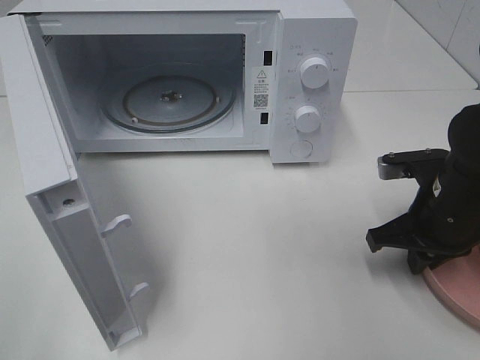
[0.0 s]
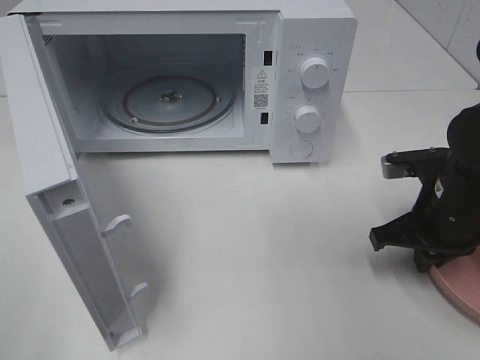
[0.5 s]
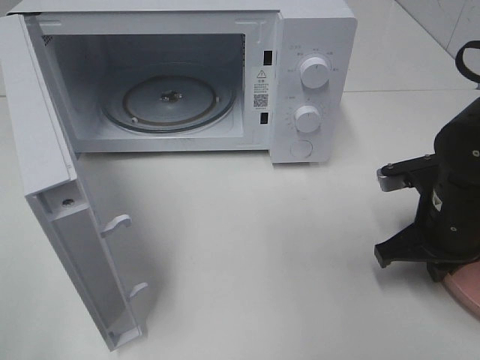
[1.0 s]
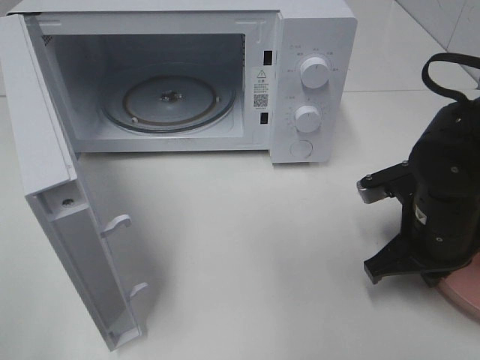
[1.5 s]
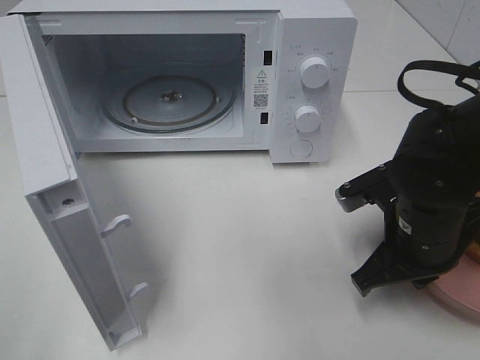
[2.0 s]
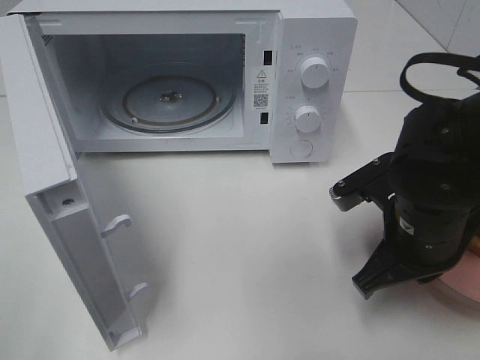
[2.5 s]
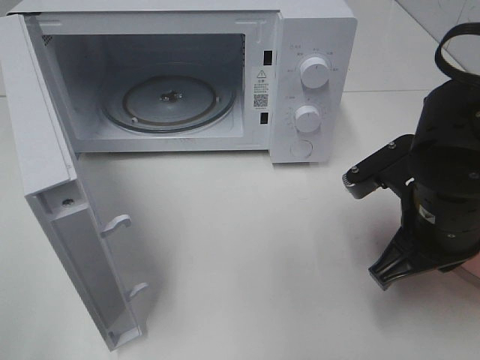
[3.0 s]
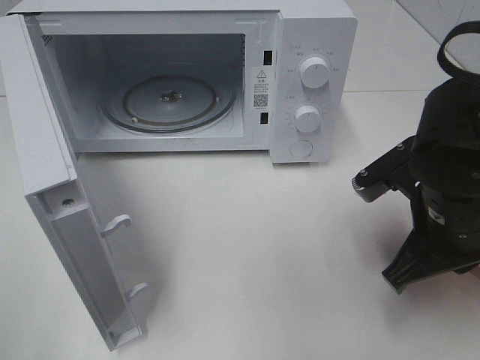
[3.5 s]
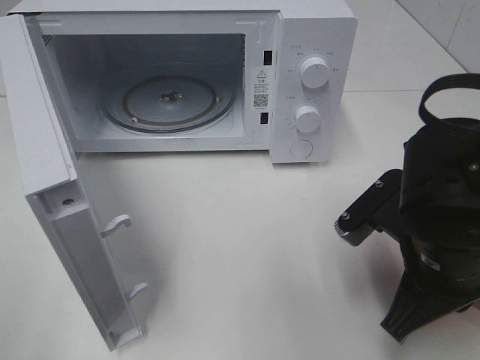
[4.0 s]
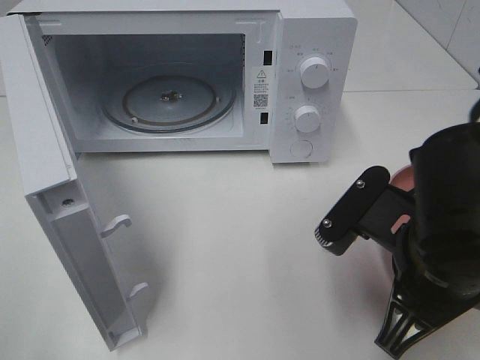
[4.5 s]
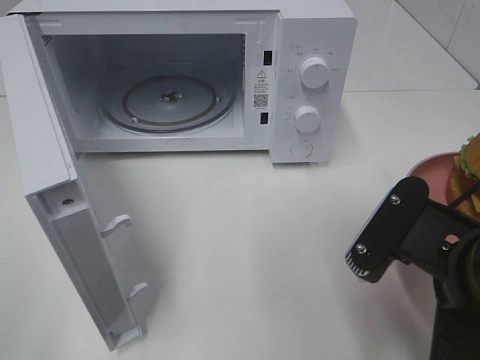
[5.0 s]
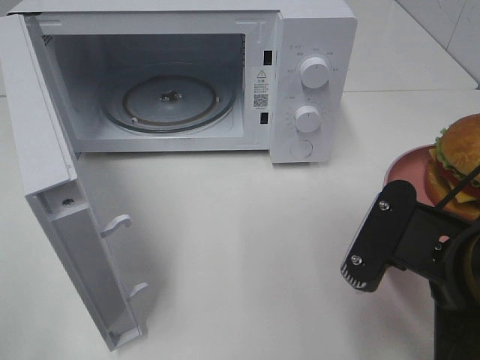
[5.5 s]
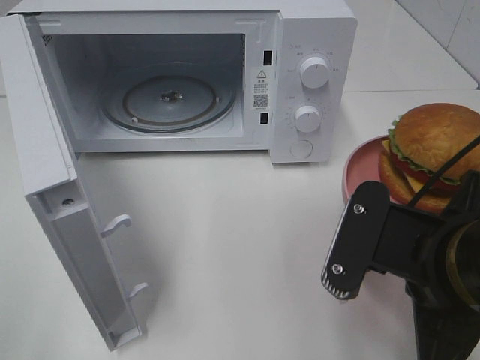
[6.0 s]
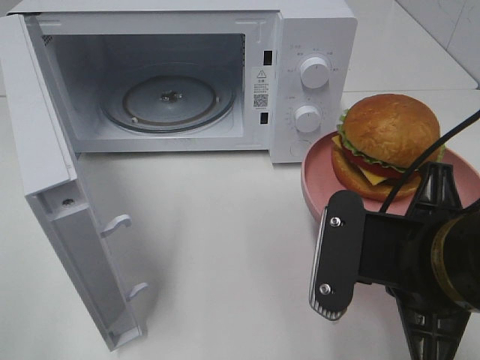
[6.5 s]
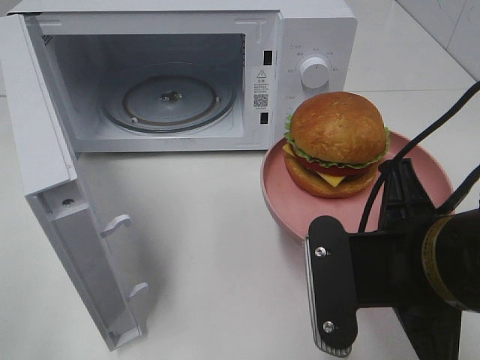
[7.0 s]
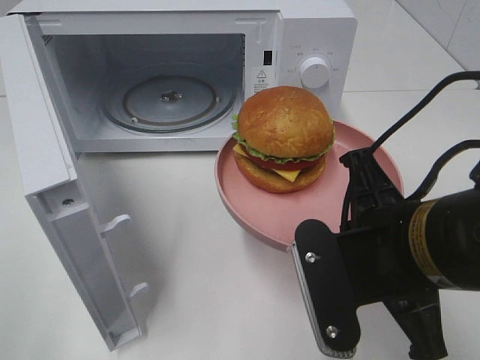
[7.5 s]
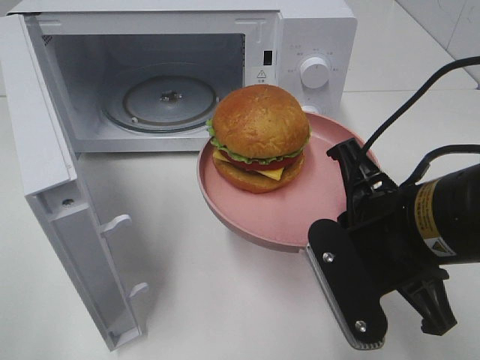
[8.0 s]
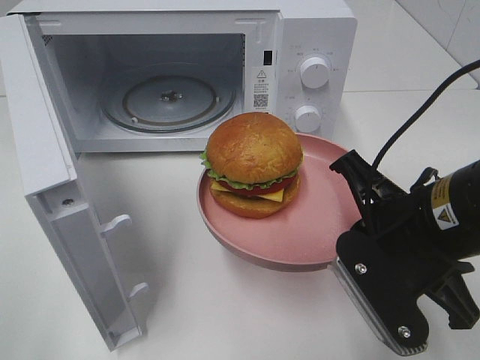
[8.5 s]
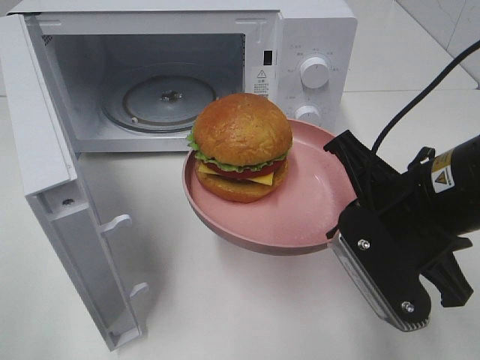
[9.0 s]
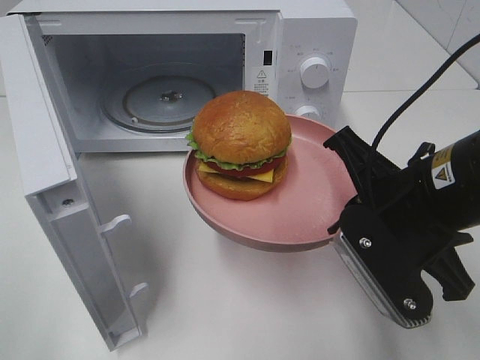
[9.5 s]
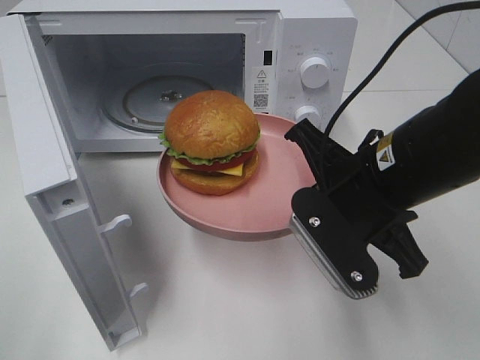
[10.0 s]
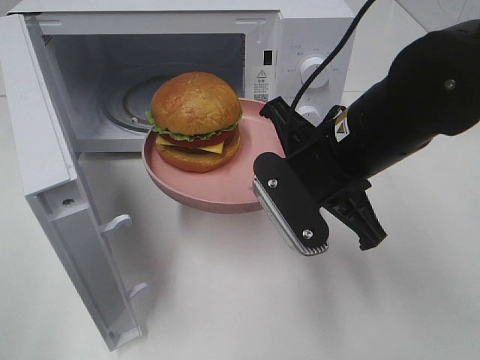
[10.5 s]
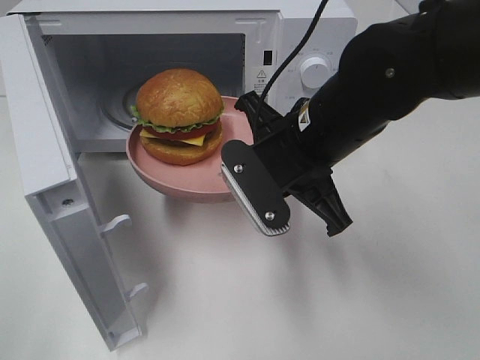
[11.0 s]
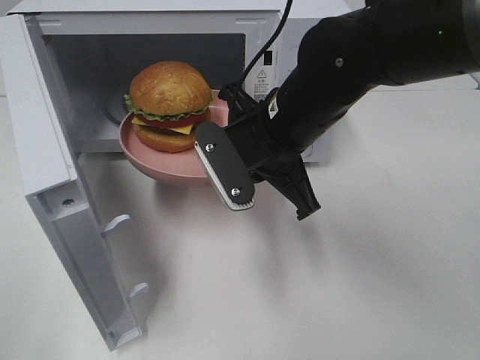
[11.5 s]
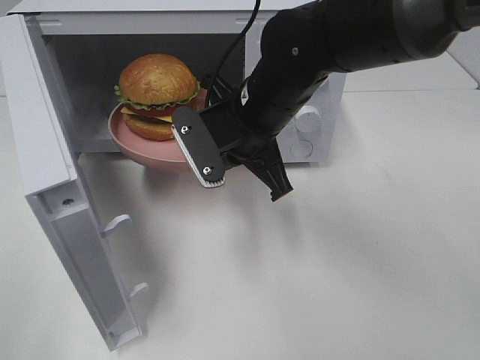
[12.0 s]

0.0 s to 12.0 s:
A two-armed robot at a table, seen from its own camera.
Task of the whole recording: Heat the burger.
0.0 to 2.0 s: The right gripper shifts about 5 cm to the left.
2.0 to 4.0 s: The right gripper shifts about 5 cm backward.
4.0 to 6.0 s: The right gripper goes approximately 5 cm backward.
8.0 to 10.0 s: The right gripper is displaced forward by roughly 5 cm.
10.0 to 12.0 s: The right gripper moves forward and to the left, roughly 15 cm.

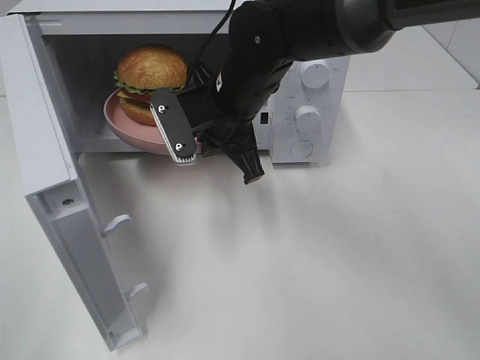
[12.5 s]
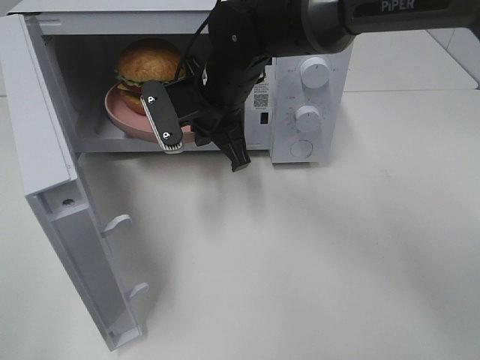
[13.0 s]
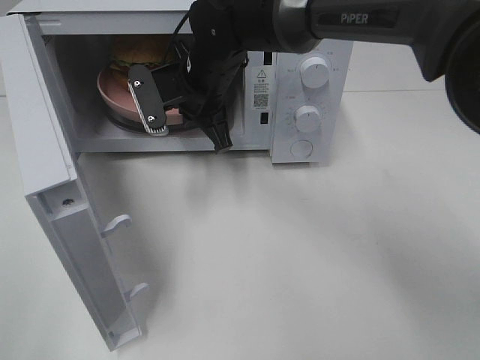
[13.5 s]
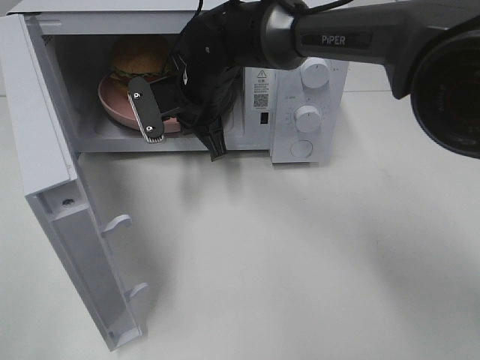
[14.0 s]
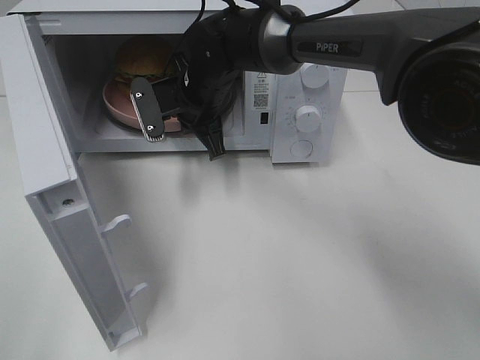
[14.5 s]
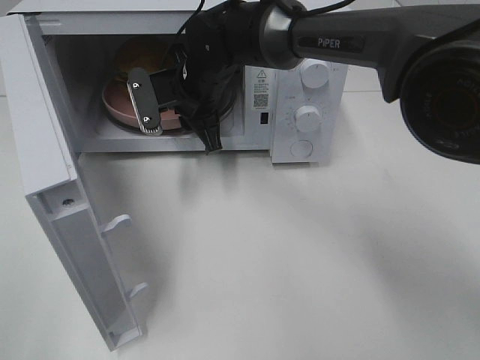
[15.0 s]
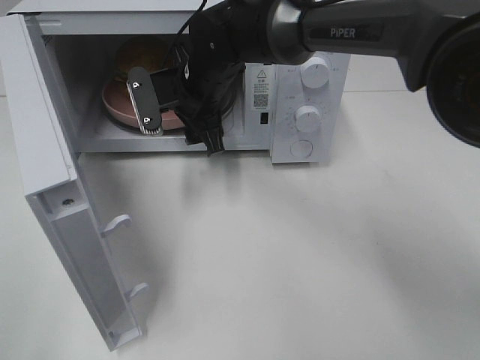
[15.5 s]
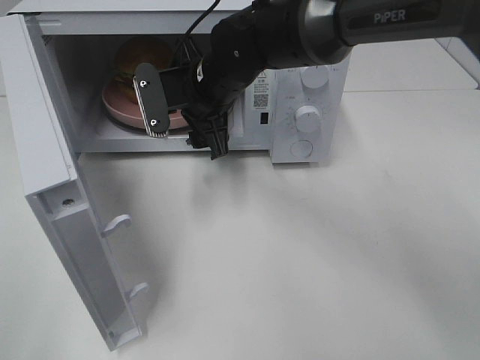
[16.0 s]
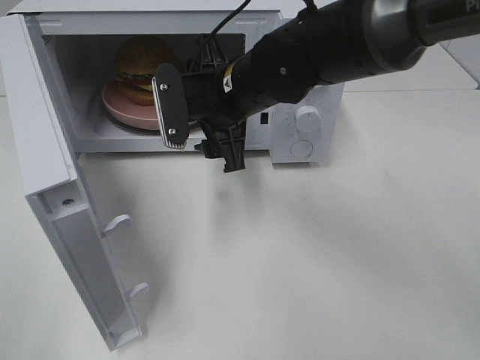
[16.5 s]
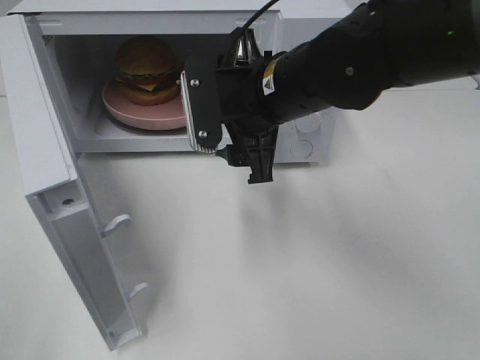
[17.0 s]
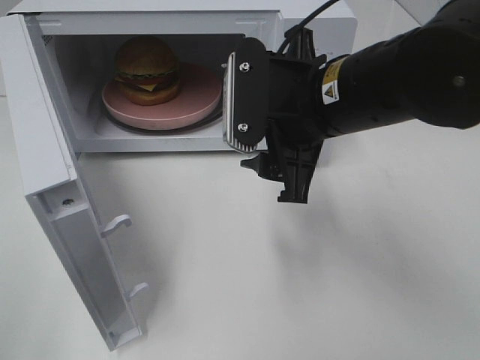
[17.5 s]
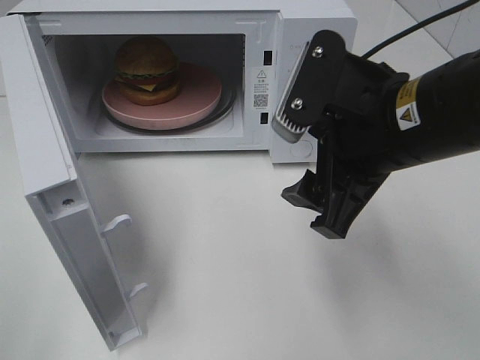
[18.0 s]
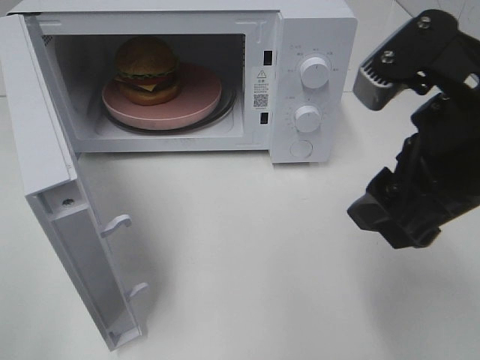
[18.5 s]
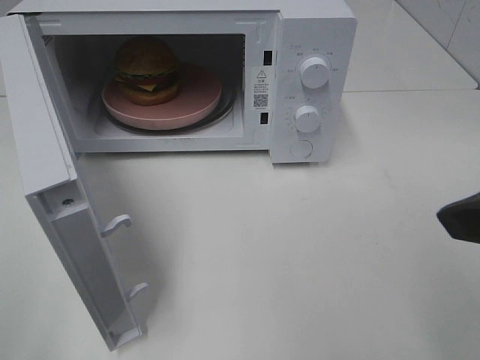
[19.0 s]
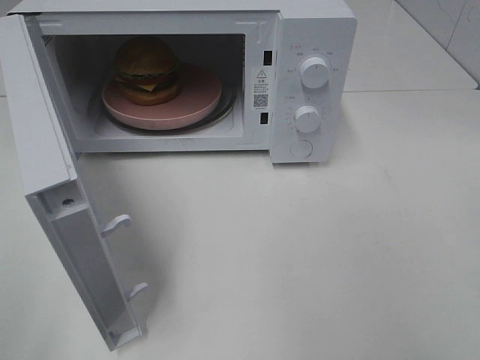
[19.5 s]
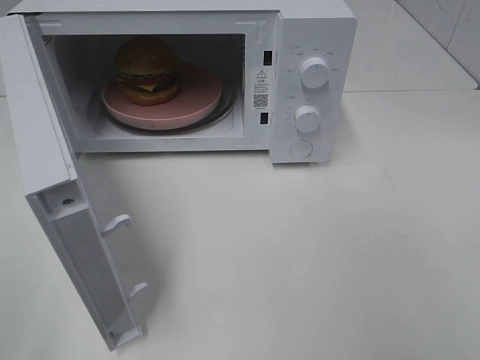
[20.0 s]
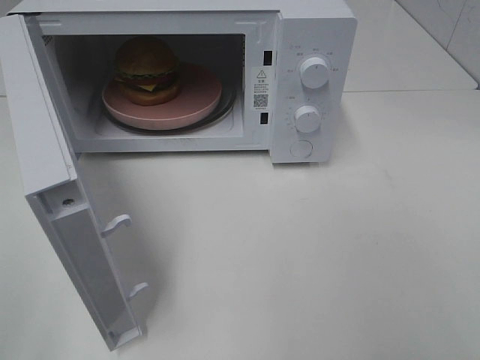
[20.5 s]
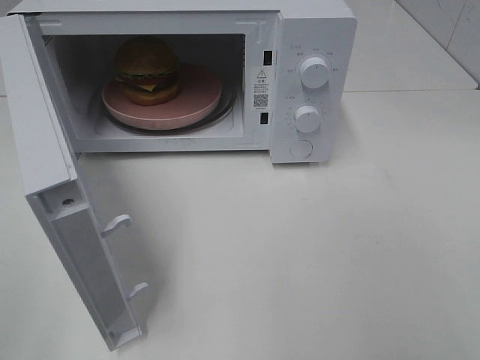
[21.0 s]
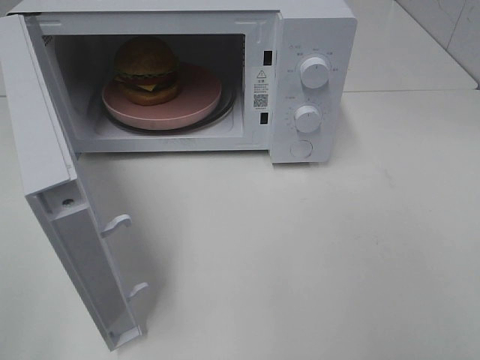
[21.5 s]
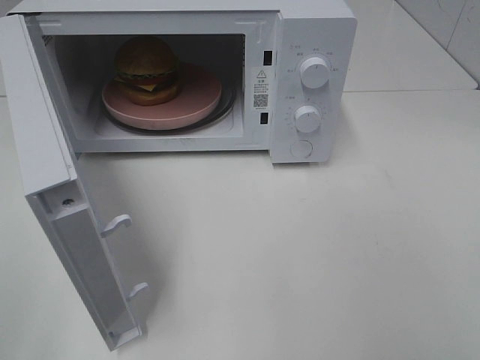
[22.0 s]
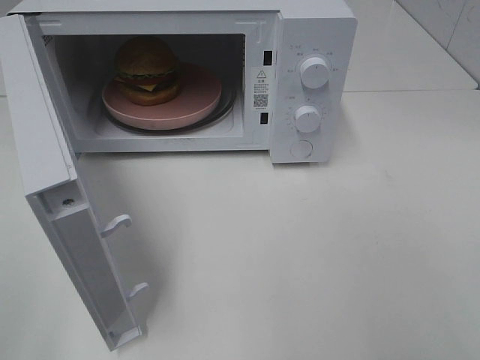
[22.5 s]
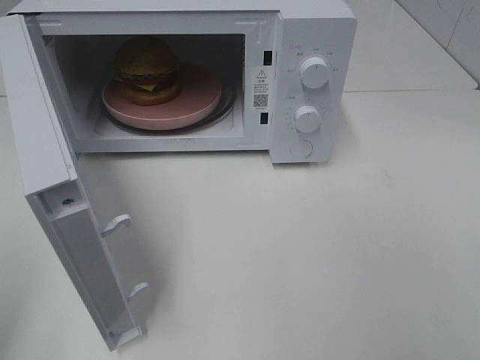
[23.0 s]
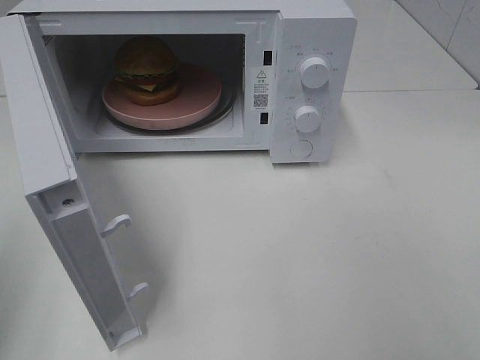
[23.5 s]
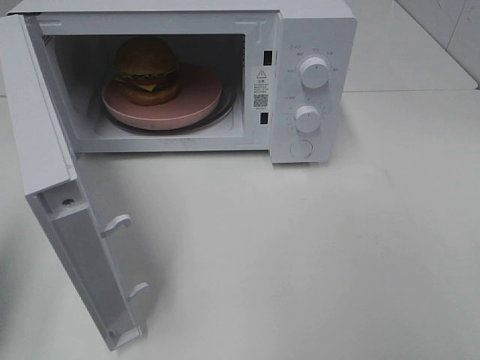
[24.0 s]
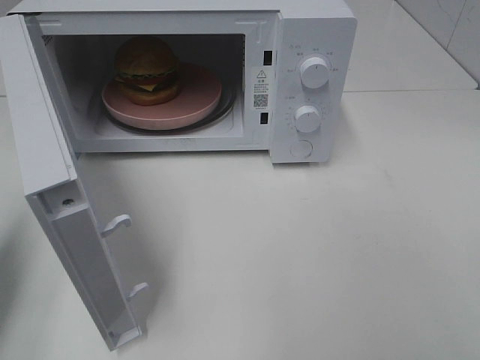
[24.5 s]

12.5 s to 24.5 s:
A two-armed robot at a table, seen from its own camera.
Task of the whole recording: Heat the burger.
Step, 12.5 to 15.0 s: Right hand: place the plate in the microwave.
12.5 to 14.5 s: The right gripper goes approximately 5 cm forward.
14.5 to 16.5 s: The right gripper moves backward and to the right, some 10 cm, and opens.
16.5 to 18.5 s: The right gripper travels backward, to the right and upward by some 25 cm.
18.5 to 20.5 s: The right gripper is displaced backward and to the right by roughly 20 cm.
20.5 to 22.5 s: The two grippers keep their place.
22.5 to 24.5 s: The left gripper shifts about 20 cm forward, and closes up.

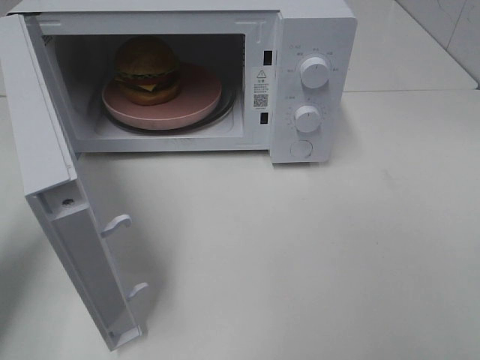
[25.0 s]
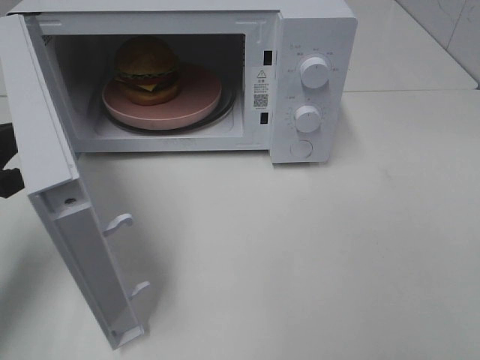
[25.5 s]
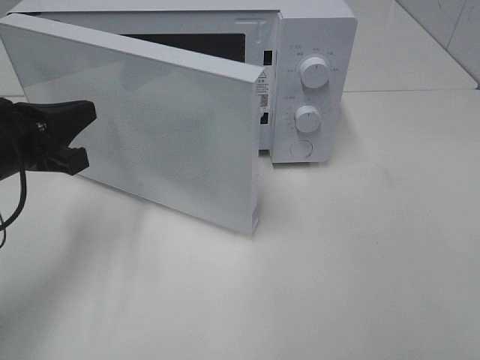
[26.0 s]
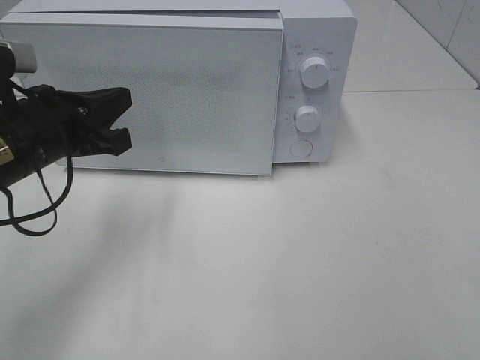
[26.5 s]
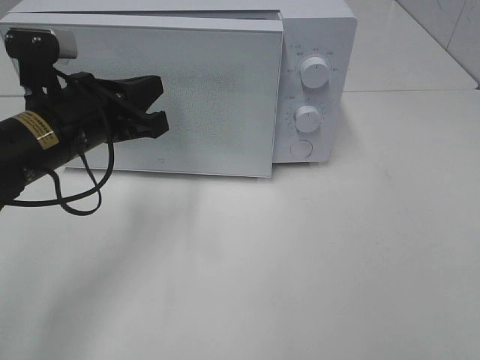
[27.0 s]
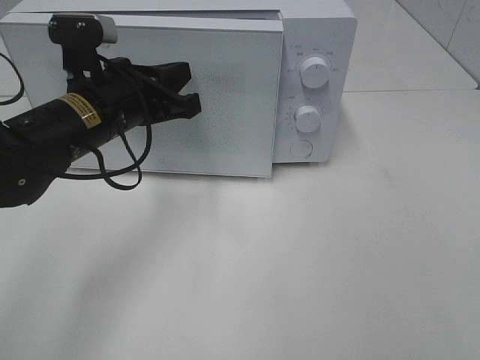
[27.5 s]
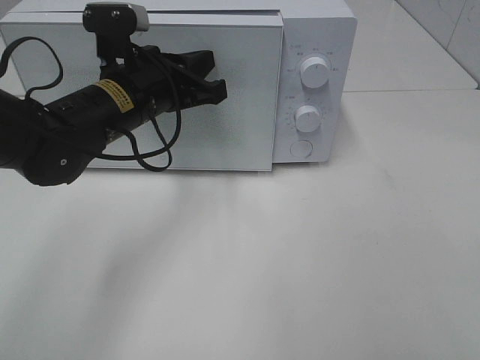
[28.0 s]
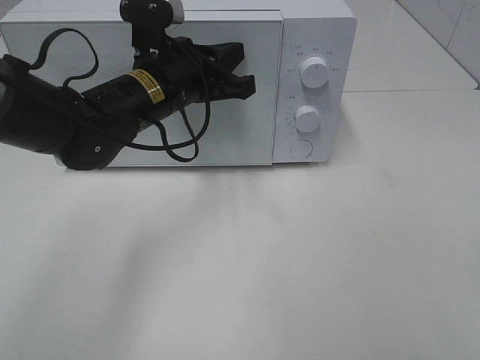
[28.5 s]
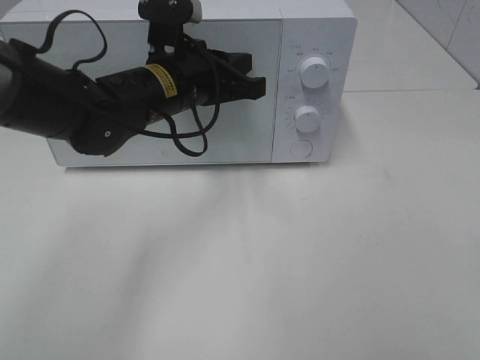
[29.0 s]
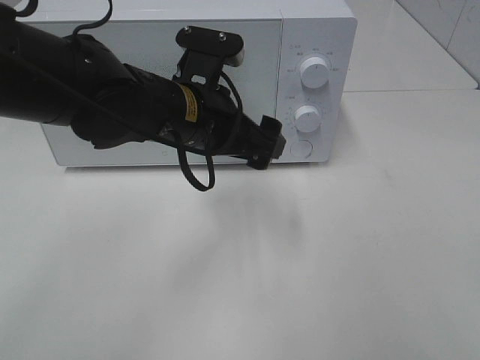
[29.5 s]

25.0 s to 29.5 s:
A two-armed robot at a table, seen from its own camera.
Task of the whole recording: Heat the burger.
Step, 25.0 to 29.0 s: Left hand: close the microwave door.
25.0 to 27.0 s: The left gripper is displaced to the right and forward by roughly 15 cm.
27.0 to 29.5 s: The left gripper travels to the right by some 10 cm, and opens its fingers.
